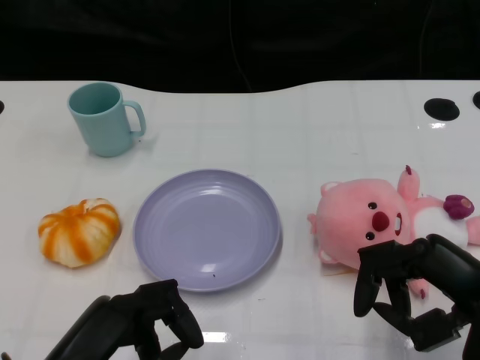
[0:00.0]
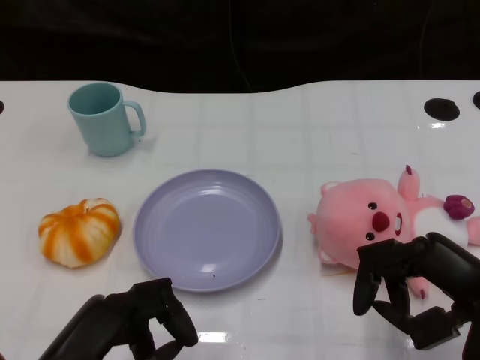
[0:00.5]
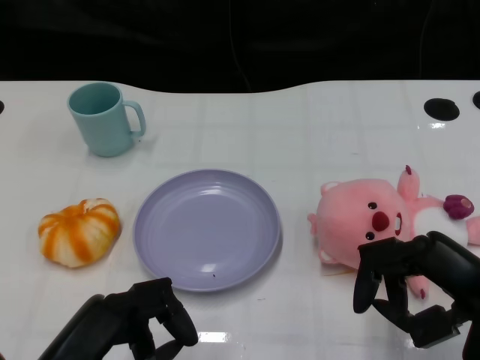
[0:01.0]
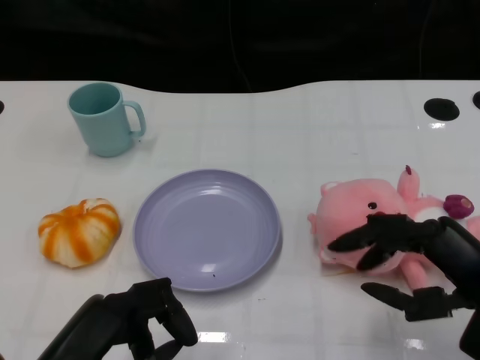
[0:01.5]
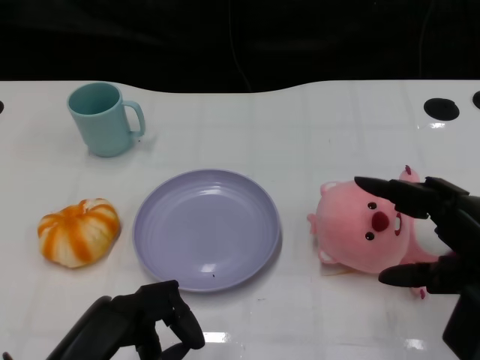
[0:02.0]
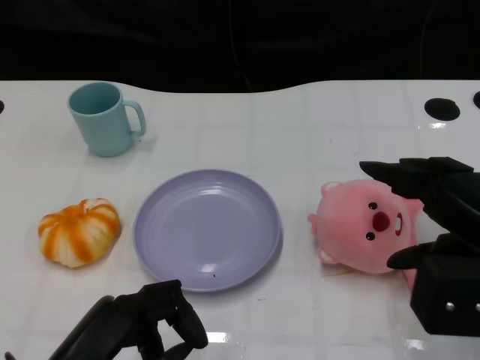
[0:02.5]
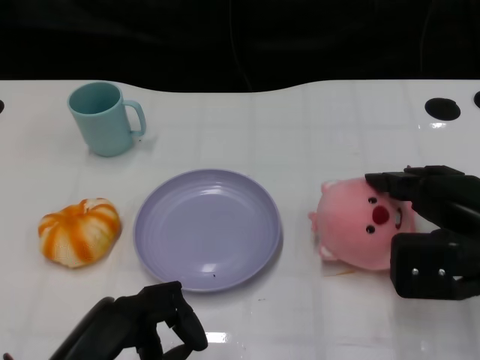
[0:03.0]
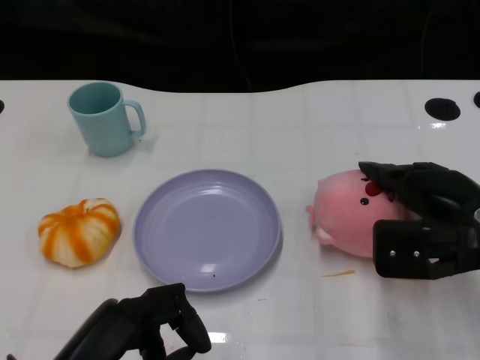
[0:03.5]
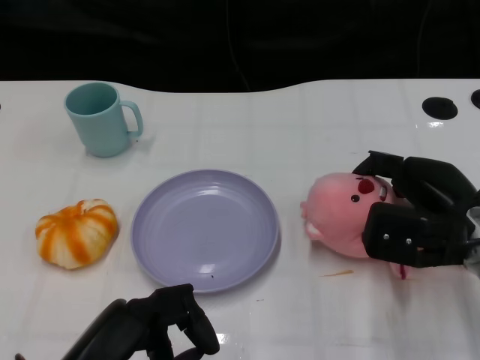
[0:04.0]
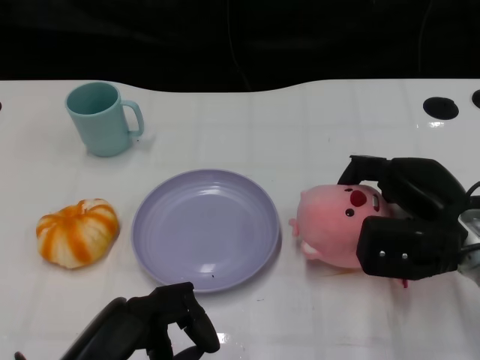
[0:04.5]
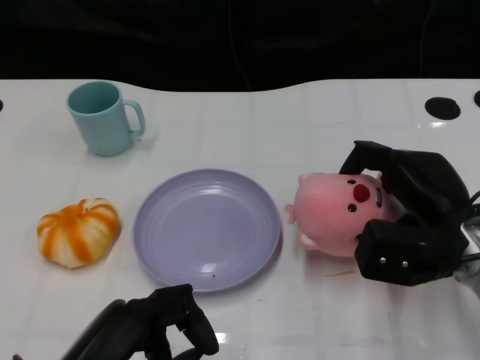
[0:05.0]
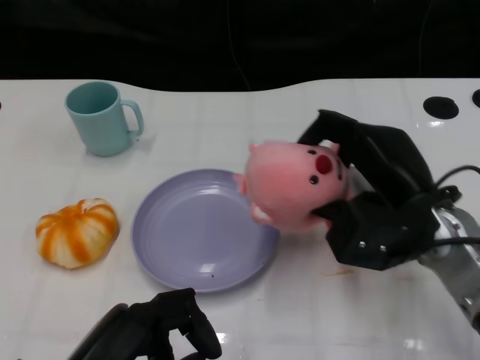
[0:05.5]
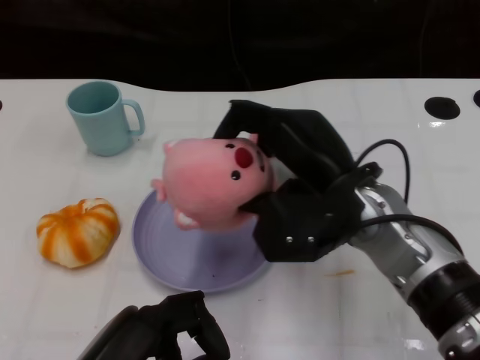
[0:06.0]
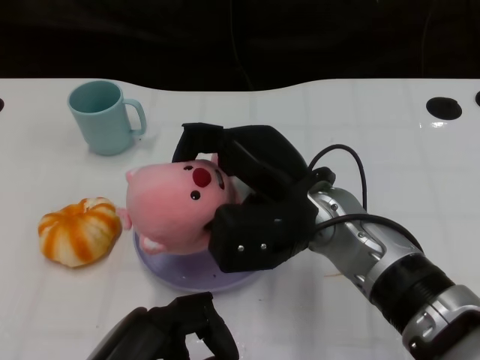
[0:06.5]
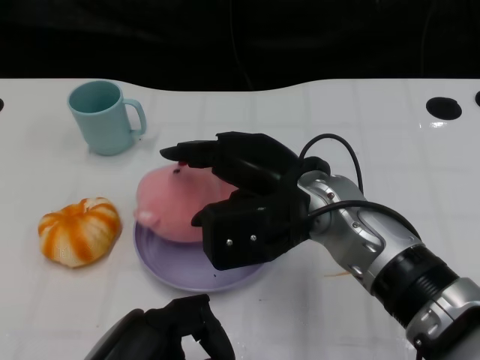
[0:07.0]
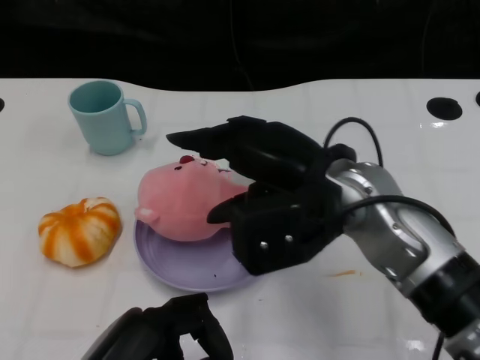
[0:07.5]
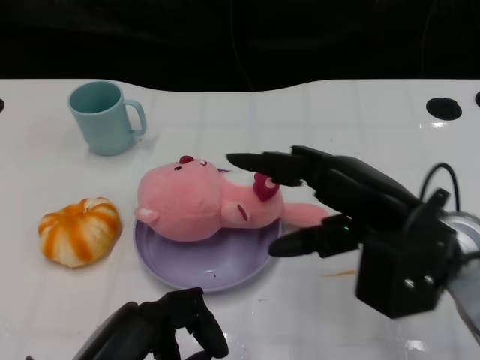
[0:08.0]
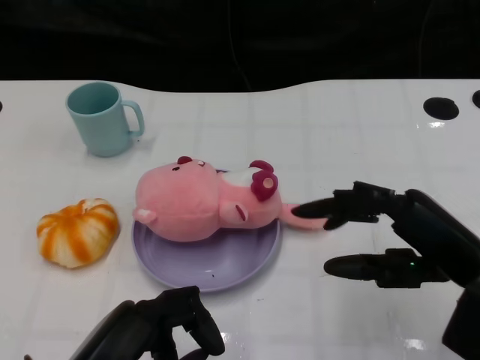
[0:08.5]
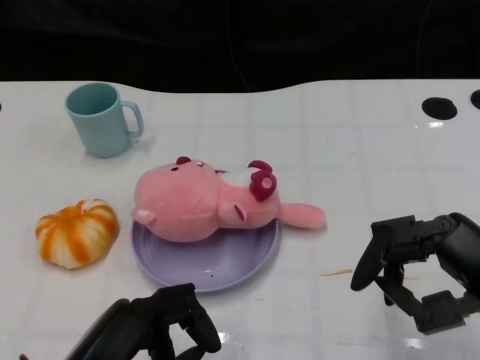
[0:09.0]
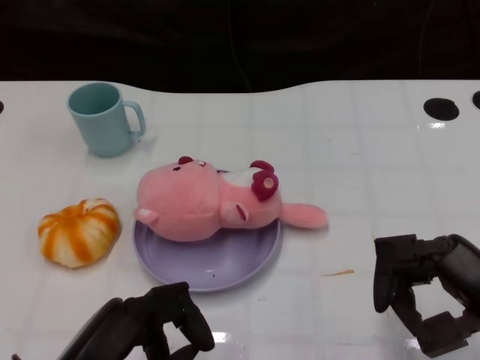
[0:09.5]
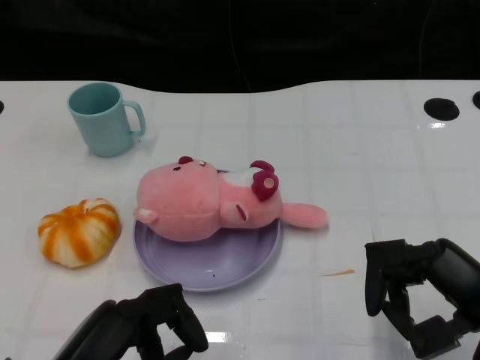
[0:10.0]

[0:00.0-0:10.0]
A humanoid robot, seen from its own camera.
Task of the whole recording: Pick up the doll on the other side of the plate and place it into the plate.
Step, 0:01.5 to 0:05.5: Grasp the pink doll with the right gripper.
Step, 0:06.0 to 0:07.5: Place the pink doll into the plate with the right gripper.
0:02.0 to 0:04.0: The right hand heads forward and downward, covering approximately 10 cm.
0:04.0 to 0:06.0: The right hand moves to the left and upward, approximately 15 cm.
0:06.0 to 0:08.0: The right hand is displaced to the right by roughly 5 cm.
0:08.0 to 0:10.0: The right hand moves to the right, backward and downward, about 10 cm.

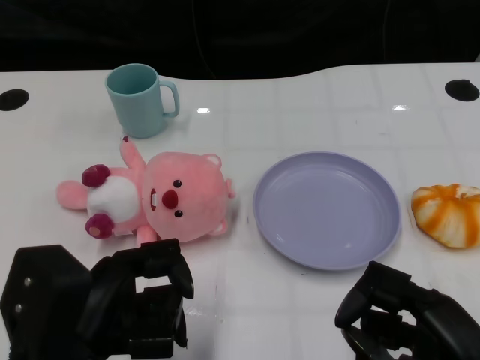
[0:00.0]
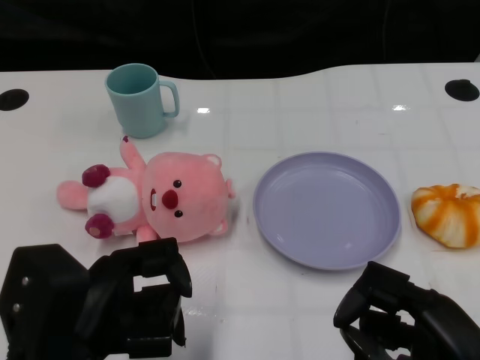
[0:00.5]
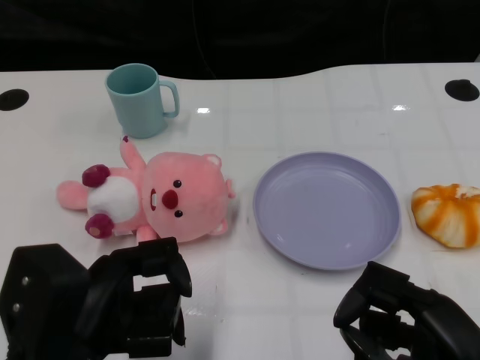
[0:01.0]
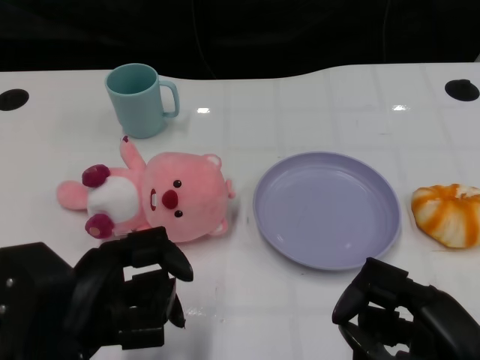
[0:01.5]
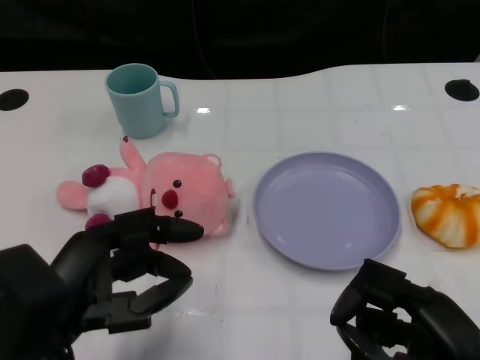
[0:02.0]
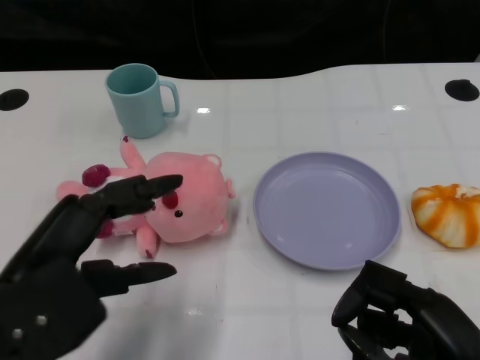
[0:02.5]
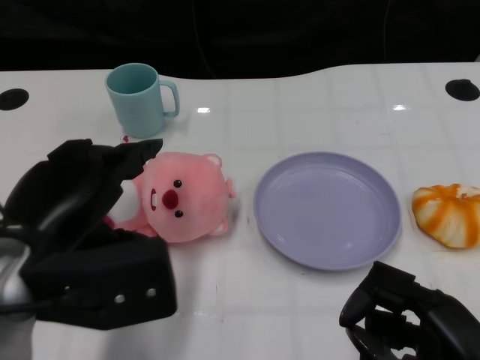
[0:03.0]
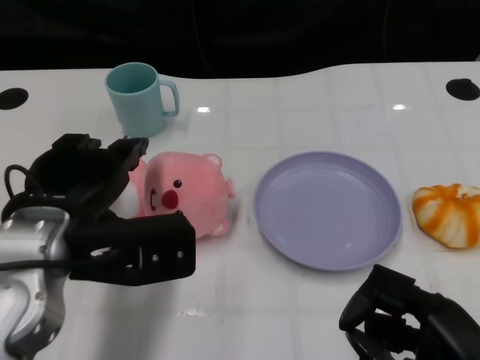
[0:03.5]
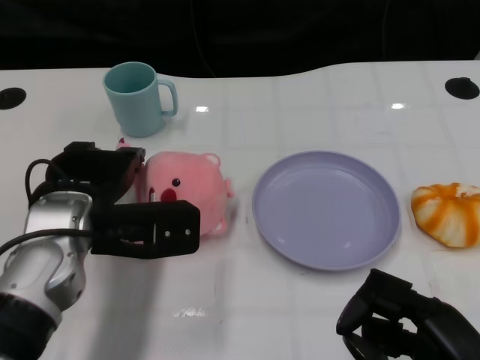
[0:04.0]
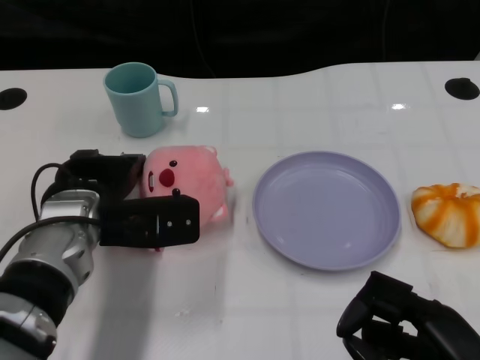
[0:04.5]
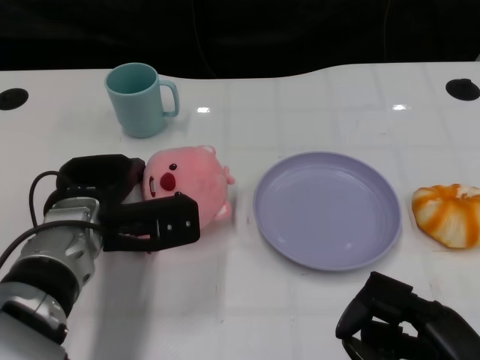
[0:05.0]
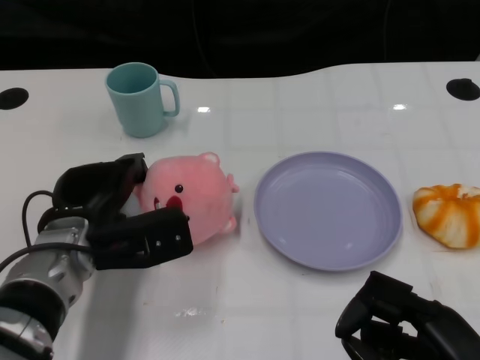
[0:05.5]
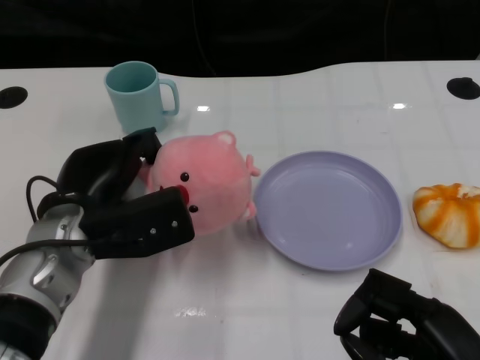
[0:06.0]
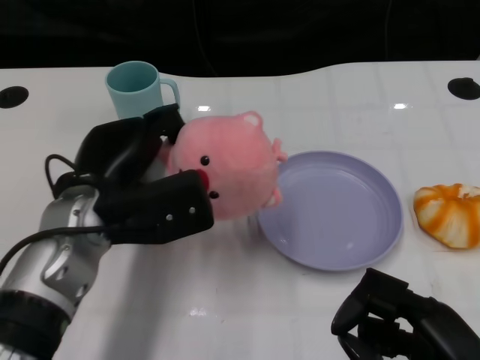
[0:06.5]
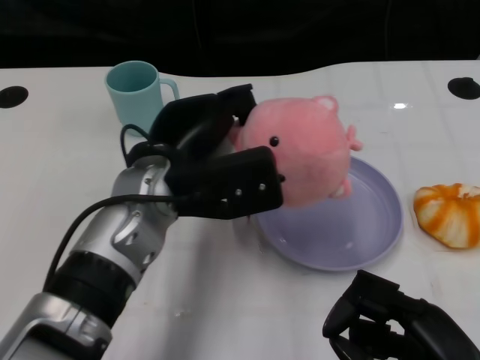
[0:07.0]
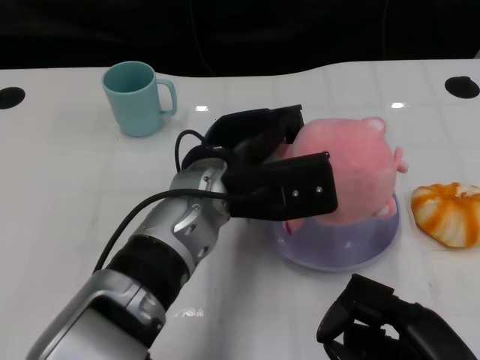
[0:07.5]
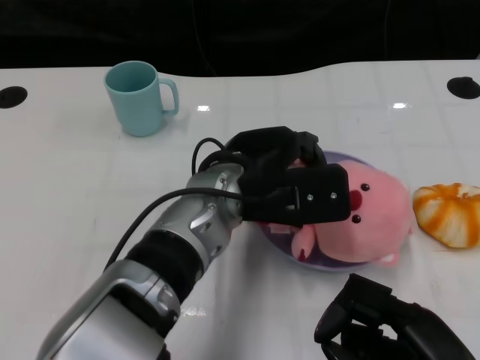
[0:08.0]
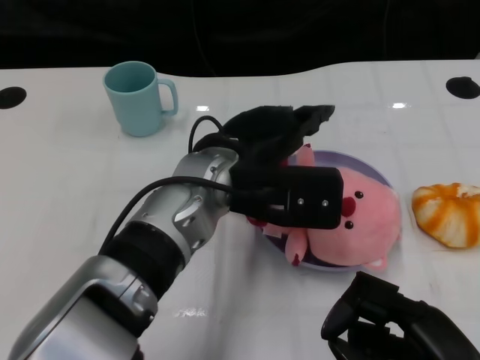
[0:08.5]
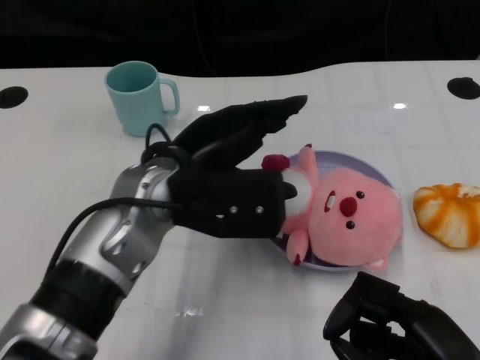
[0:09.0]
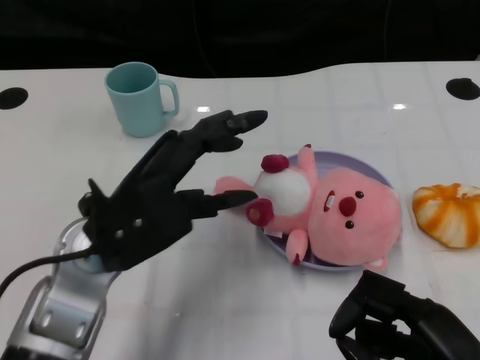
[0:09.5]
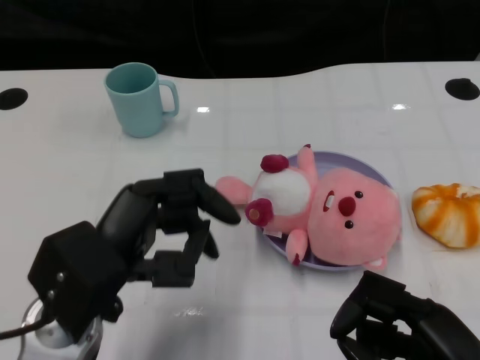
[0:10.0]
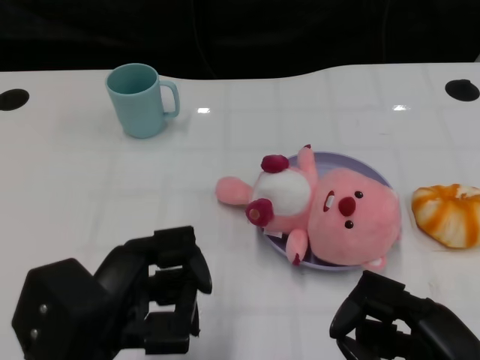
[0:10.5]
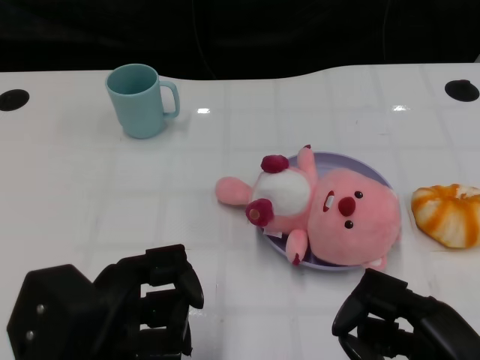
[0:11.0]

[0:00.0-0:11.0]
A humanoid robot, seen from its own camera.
Task of the whole recording: Pick up the doll on one side of the plate and place it into the plate.
Step, 0:01.5 to 0:05.5: Grasp the pink doll with the left gripper.
Step, 0:06.0 to 0:08.5: Place the pink doll into the plate with the left gripper.
0:02.0 to 0:03.5: The left hand goes roughly 10 cm forward.
0:03.5 to 0:05.5: The left hand moves downward and forward, approximately 10 cm.
0:05.5 to 0:07.5: The left hand shifts approximately 15 cm to the right and upward.
0:07.5 to 0:09.0: The left hand ends up about 5 cm from where it was.
0:09.0 to 0:11.0: The left hand is displaced backward and to the left by some 15 cm.

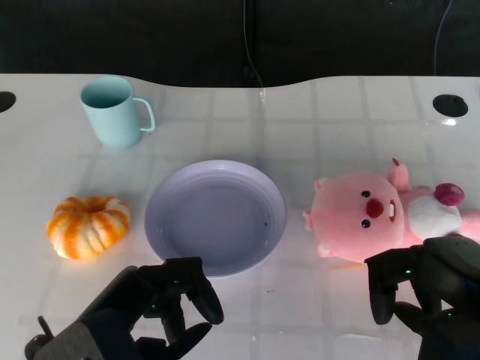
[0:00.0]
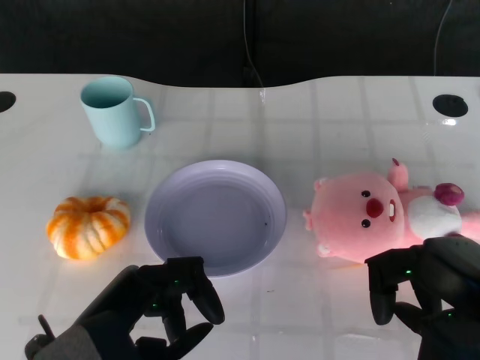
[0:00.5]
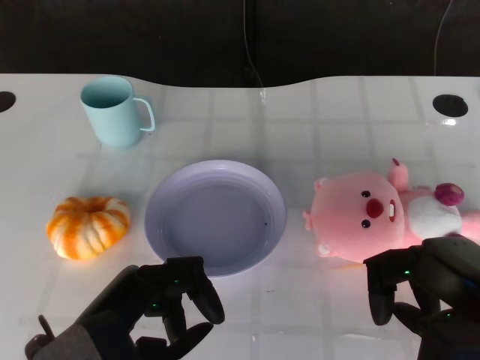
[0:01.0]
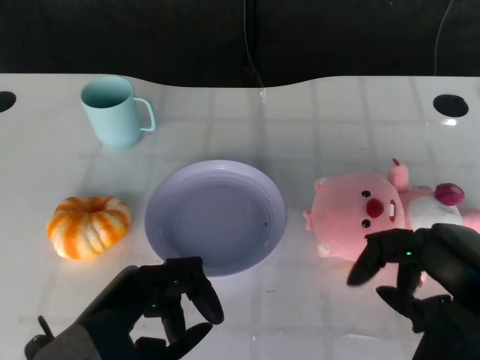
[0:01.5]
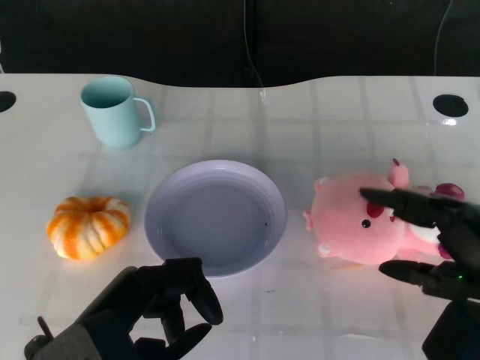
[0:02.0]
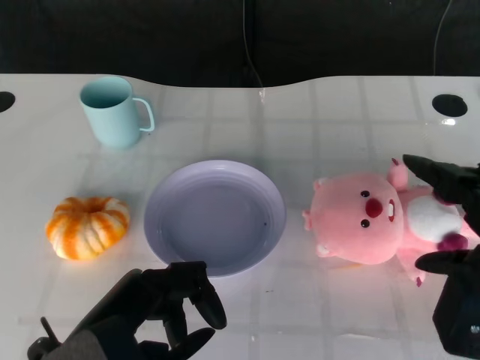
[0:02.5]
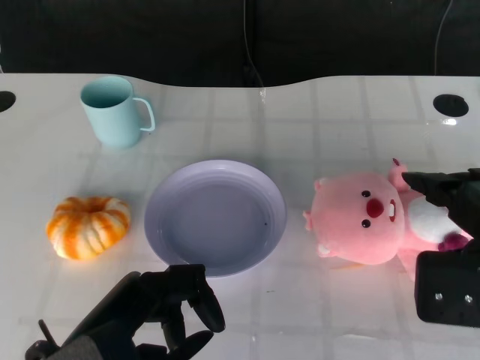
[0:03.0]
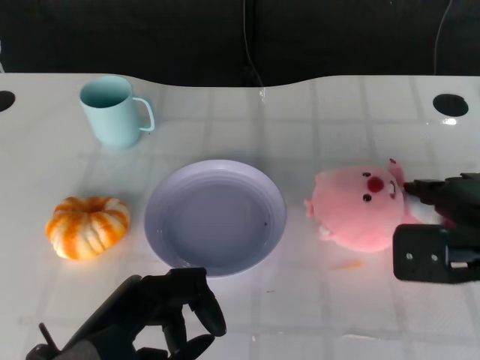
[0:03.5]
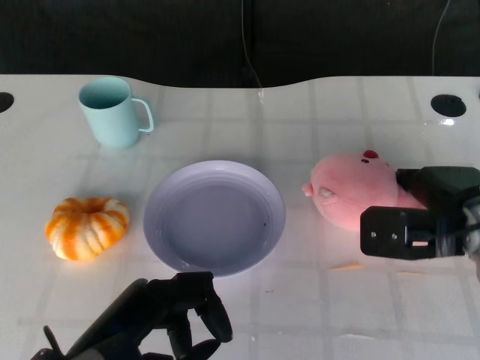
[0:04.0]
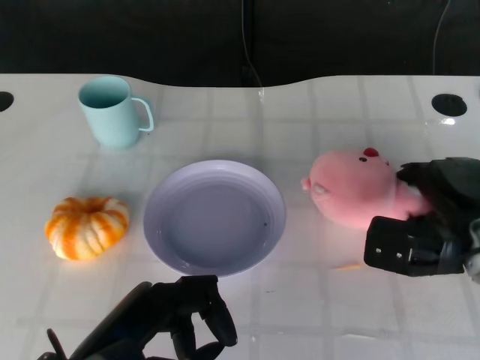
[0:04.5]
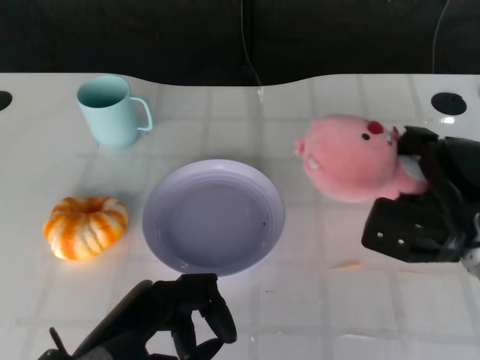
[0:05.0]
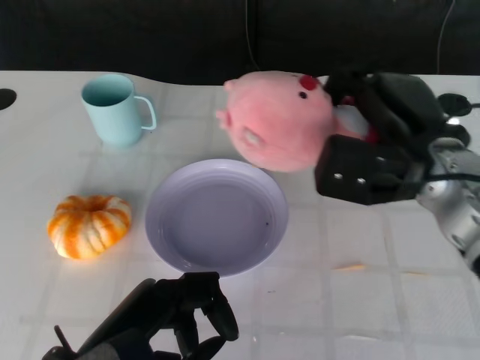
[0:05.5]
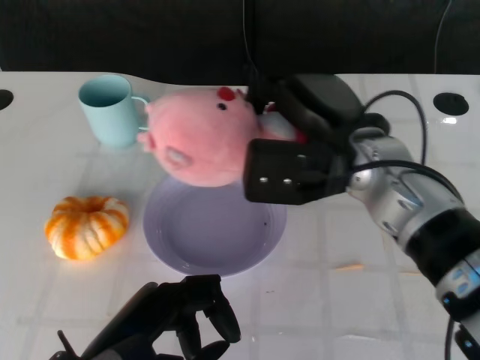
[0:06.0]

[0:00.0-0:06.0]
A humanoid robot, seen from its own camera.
Task of the whole recording: Pick up the doll on the other side of the plate and place it into the plate.
Step, 0:01.5 to 0:04.5: Grasp the pink doll with the right gripper.
0:02.0 to 0:04.0: The right hand moves forward, some 15 cm.
0:04.0 to 0:06.0: The right hand moves to the left and upward, some 15 cm.
